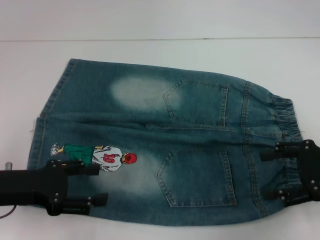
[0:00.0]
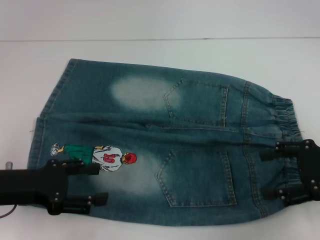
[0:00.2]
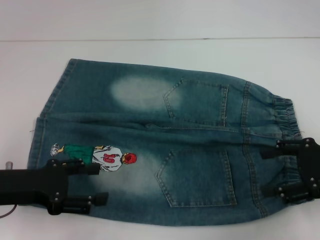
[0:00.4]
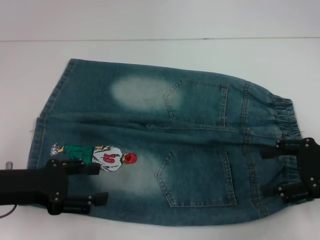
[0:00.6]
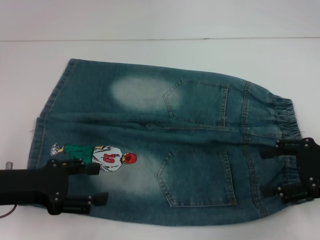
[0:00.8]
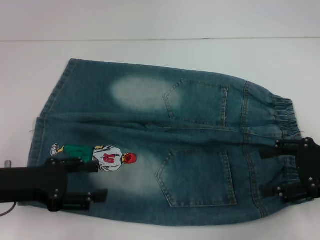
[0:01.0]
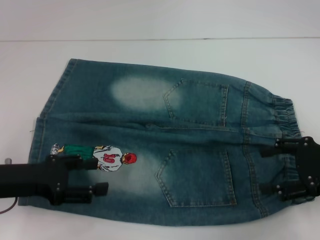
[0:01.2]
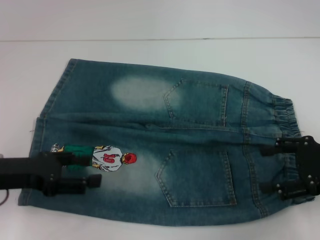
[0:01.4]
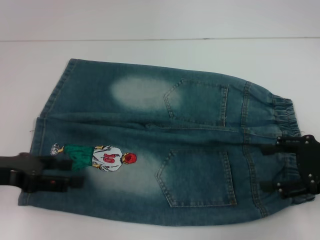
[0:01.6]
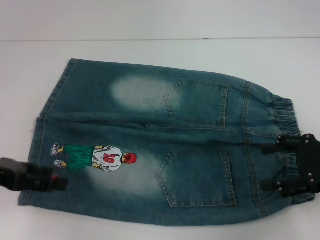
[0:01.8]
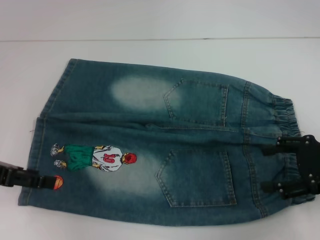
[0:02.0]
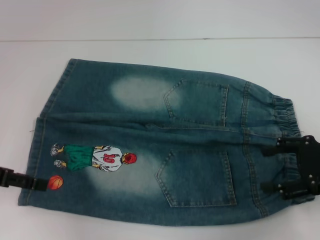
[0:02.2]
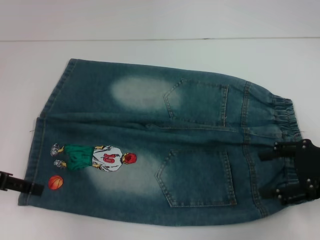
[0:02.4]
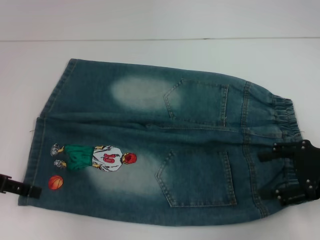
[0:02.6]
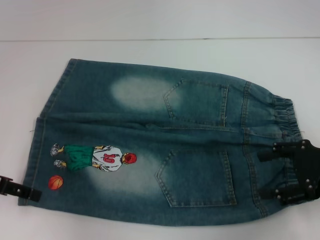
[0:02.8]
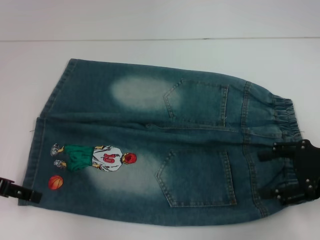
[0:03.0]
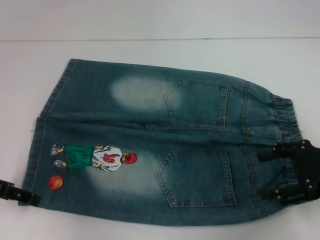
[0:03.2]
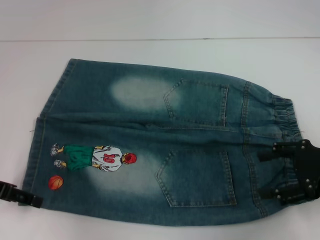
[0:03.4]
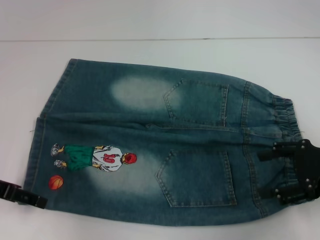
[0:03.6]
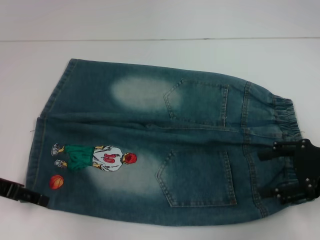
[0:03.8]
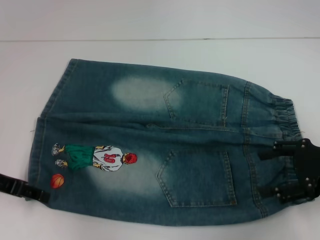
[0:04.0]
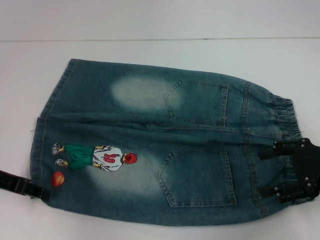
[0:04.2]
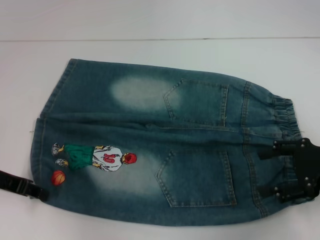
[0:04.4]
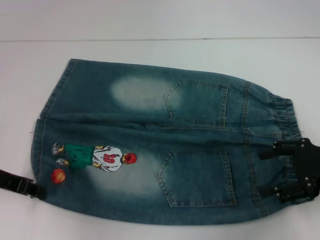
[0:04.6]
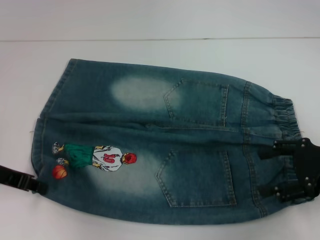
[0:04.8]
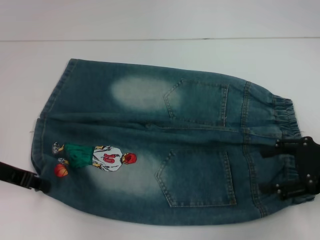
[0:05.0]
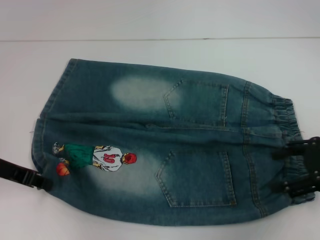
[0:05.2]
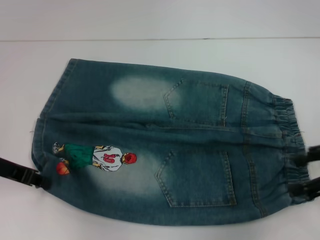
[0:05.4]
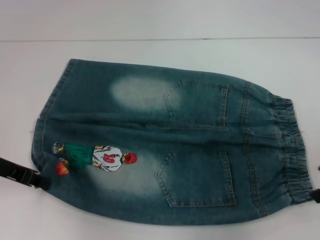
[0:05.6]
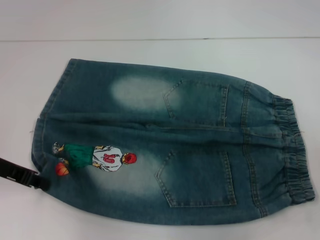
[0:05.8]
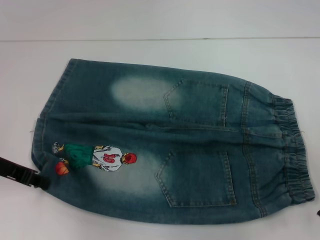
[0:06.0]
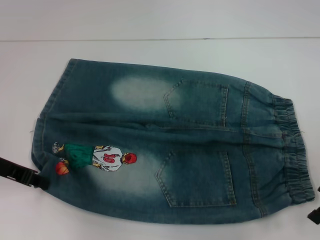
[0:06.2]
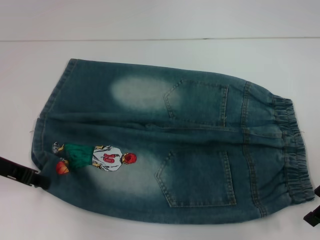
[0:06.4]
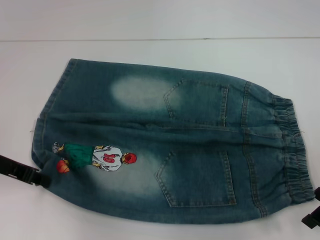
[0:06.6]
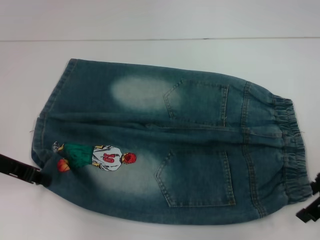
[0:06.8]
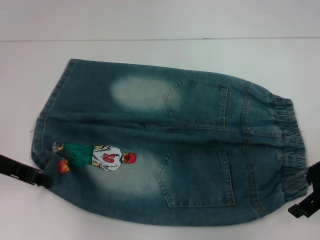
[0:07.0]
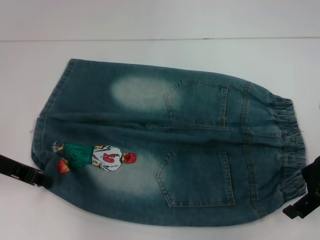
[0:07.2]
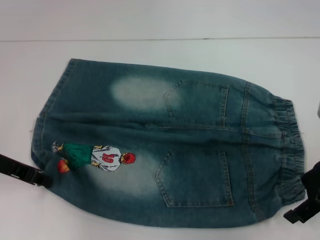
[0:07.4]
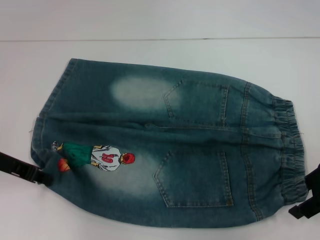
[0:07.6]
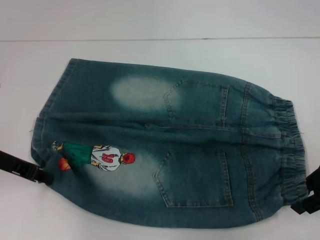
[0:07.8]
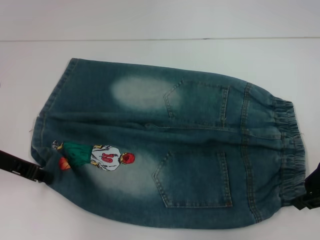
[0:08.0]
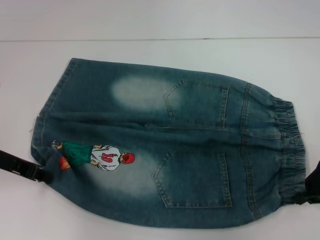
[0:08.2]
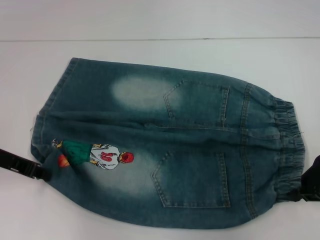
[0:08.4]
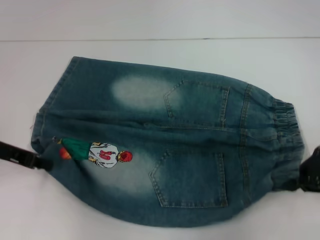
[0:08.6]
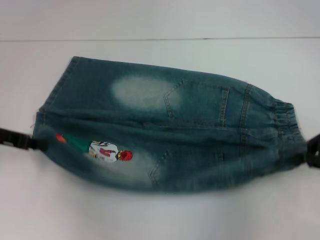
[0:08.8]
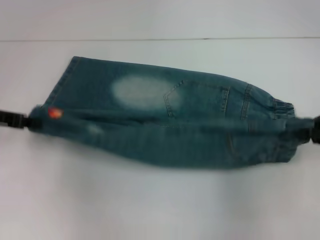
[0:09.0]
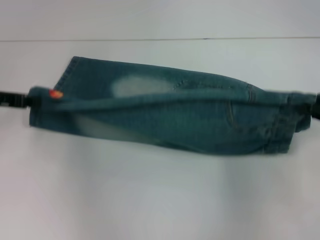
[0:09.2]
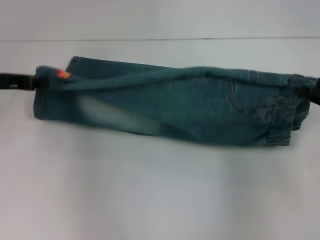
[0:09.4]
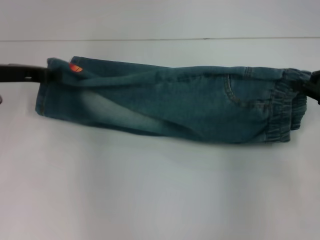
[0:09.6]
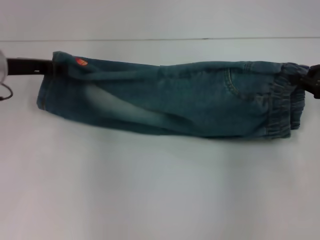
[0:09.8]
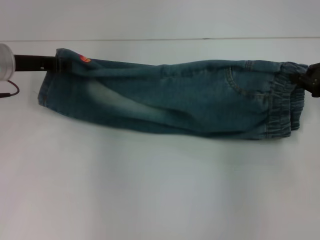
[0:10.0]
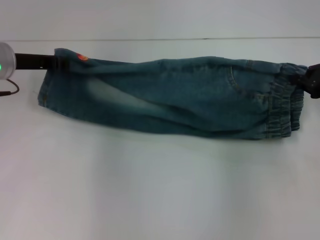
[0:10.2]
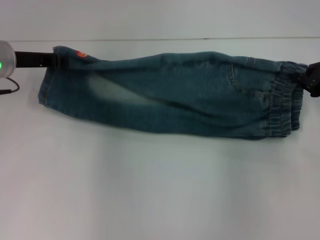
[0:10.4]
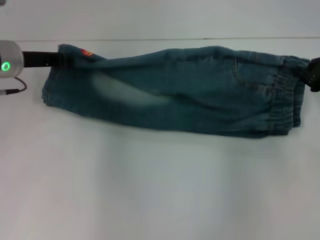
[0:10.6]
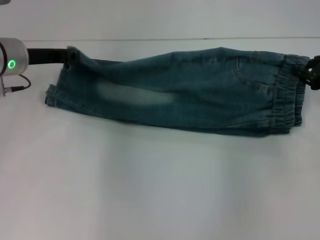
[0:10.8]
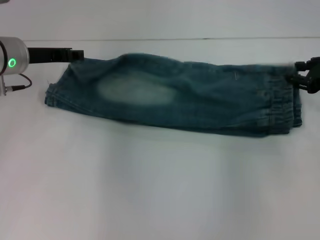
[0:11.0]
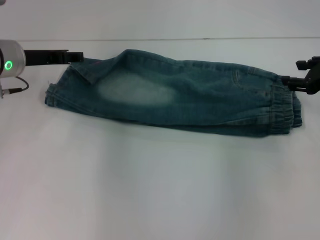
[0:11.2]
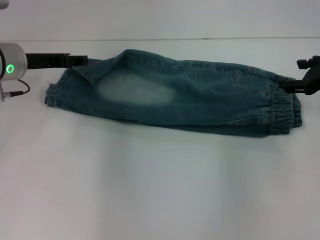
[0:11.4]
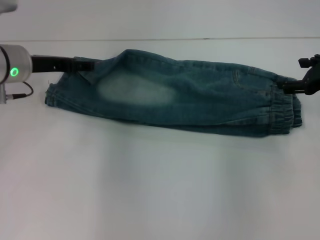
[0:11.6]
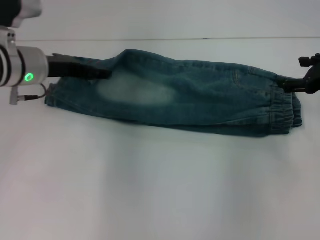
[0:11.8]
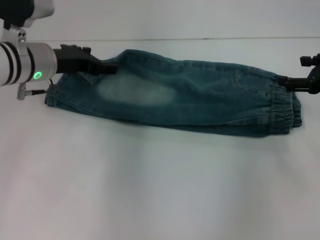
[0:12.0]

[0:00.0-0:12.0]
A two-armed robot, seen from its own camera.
Step, 0:00.0 to 0:05.0: Grab the lower left pant leg with your left hand.
Step, 0:05.2 to 0:08.2: Hold the lower right waistband with your right hand.
Step, 0:08.6 to 0:11.0: Fold upward with your right hand.
0:00.0 to 0:01.6: The grippers move only a little.
0:03.0 to 0:04.4: The left gripper closes.
0:04.4 to 0:06.0: The left gripper closes; the right gripper goes roughly 5 cm upward.
0:06.0 to 0:07.6: The grippers make only small movements.
0:07.6 to 0:09.0: The right gripper ends up about 5 cm from where it was, and closes.
0:09.0 to 0:10.4: The left gripper moves forward and to the right, roughly 10 cm, while the right gripper heads forward, covering roughly 5 cm.
0:10.4 to 0:12.0: The left gripper travels to the right by approximately 5 cm, and opens up; the right gripper opens its fingers.

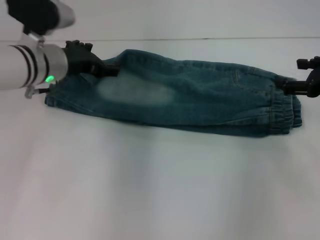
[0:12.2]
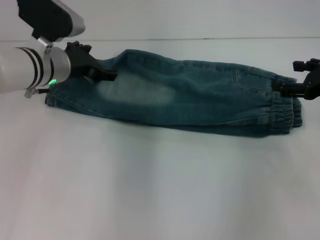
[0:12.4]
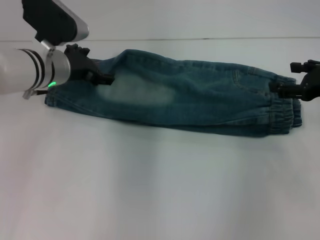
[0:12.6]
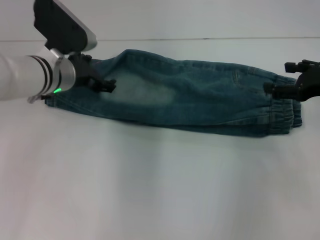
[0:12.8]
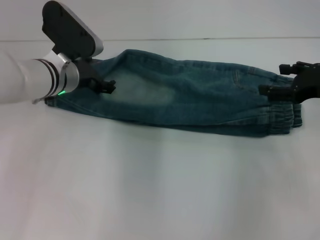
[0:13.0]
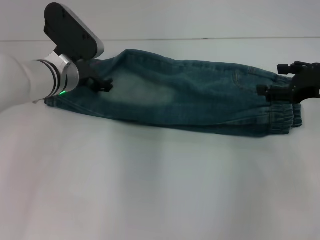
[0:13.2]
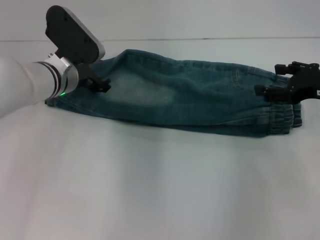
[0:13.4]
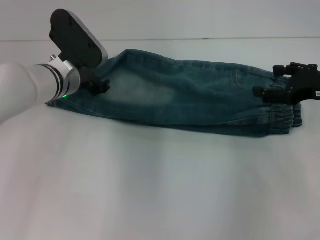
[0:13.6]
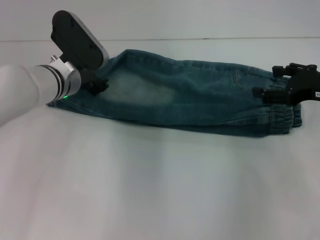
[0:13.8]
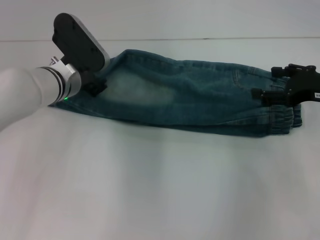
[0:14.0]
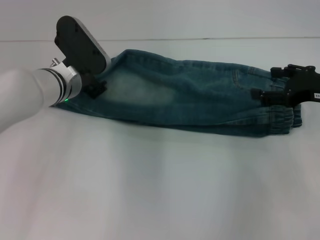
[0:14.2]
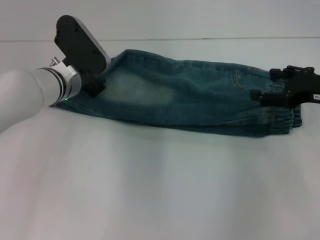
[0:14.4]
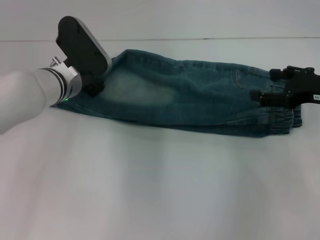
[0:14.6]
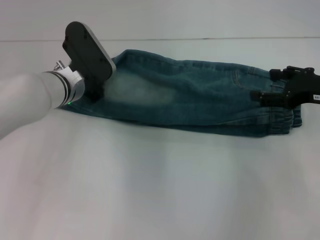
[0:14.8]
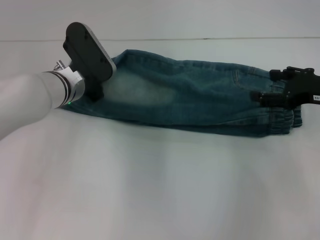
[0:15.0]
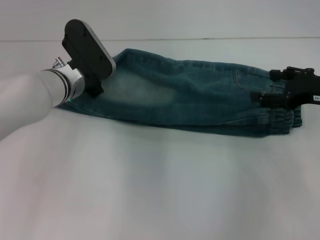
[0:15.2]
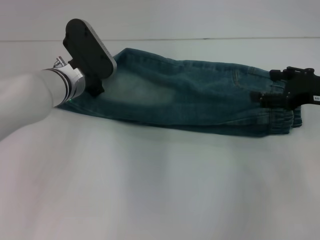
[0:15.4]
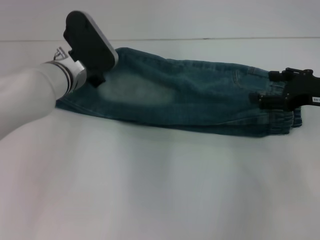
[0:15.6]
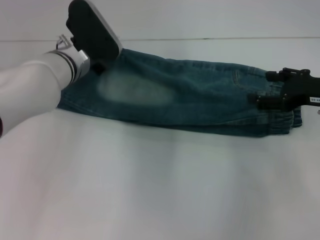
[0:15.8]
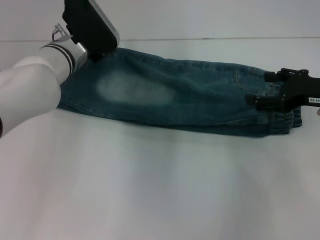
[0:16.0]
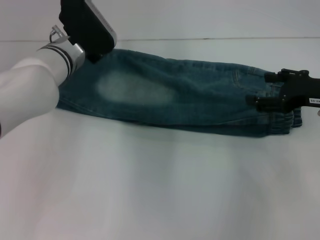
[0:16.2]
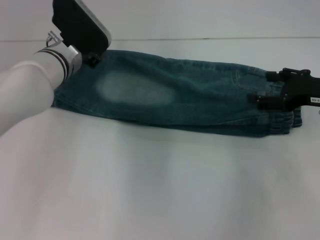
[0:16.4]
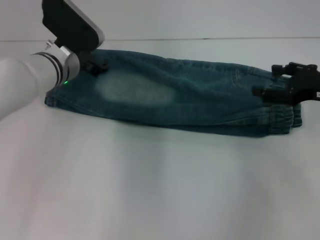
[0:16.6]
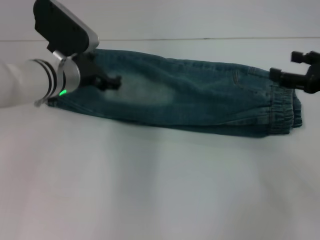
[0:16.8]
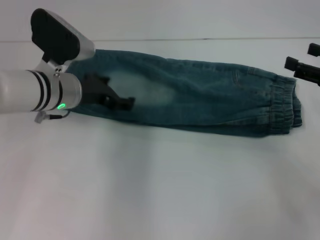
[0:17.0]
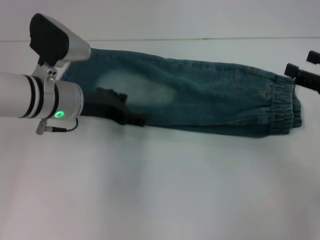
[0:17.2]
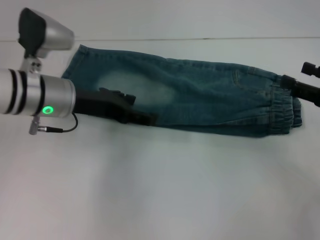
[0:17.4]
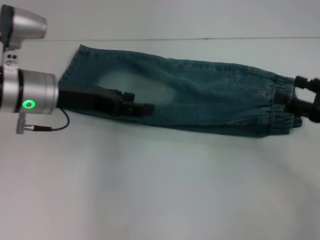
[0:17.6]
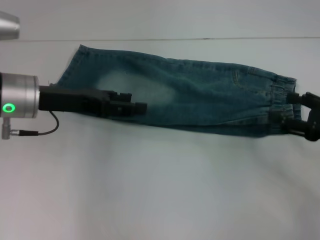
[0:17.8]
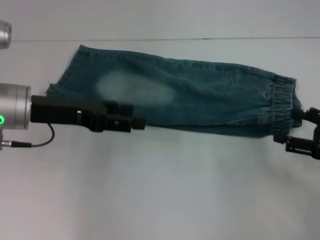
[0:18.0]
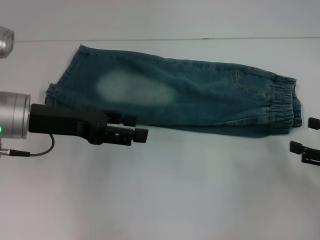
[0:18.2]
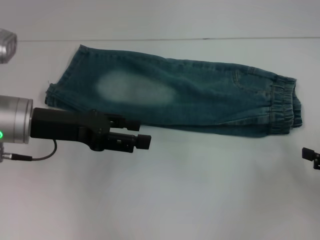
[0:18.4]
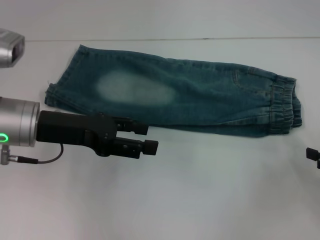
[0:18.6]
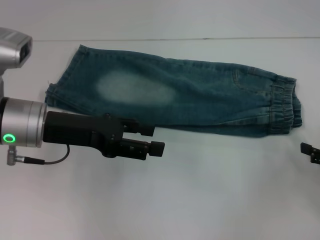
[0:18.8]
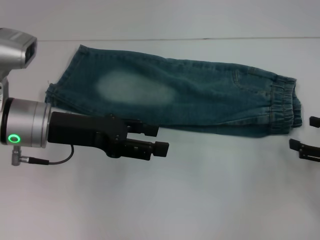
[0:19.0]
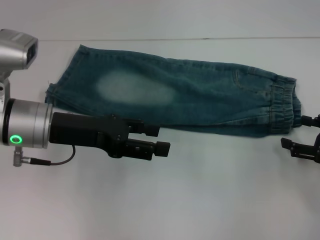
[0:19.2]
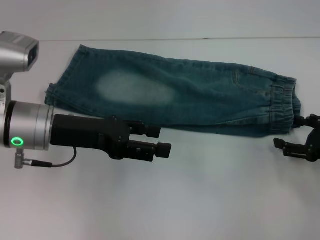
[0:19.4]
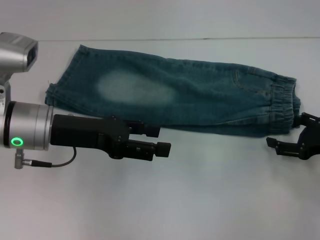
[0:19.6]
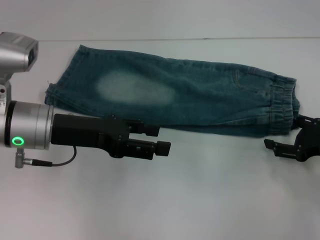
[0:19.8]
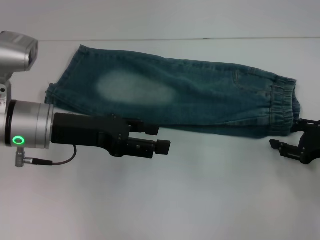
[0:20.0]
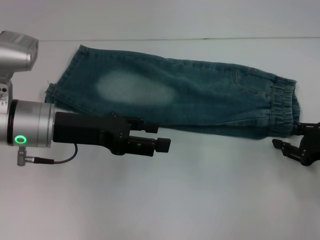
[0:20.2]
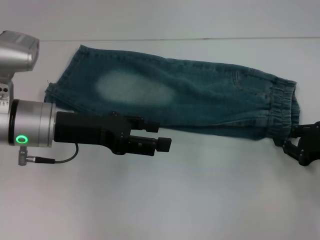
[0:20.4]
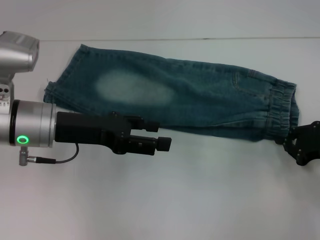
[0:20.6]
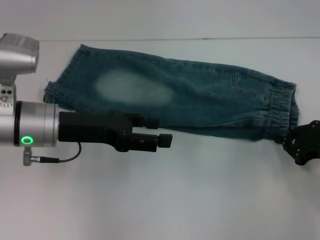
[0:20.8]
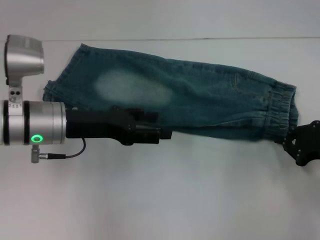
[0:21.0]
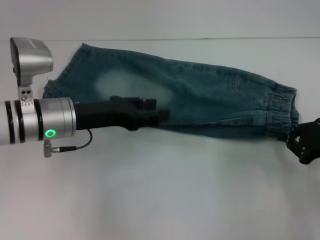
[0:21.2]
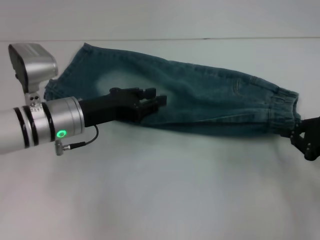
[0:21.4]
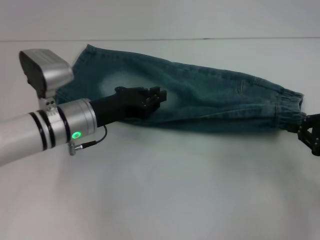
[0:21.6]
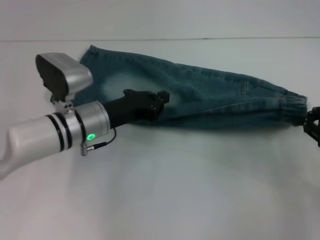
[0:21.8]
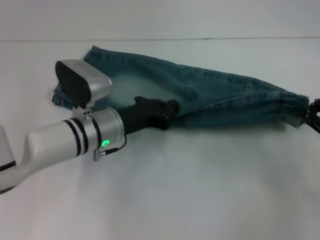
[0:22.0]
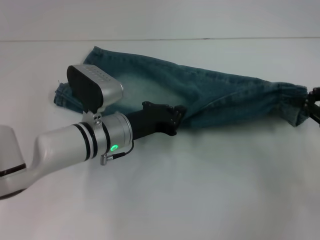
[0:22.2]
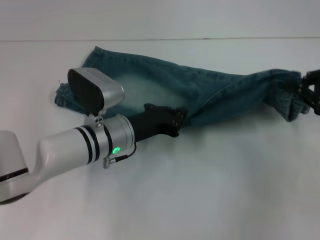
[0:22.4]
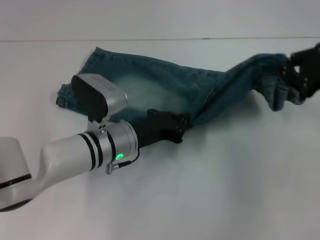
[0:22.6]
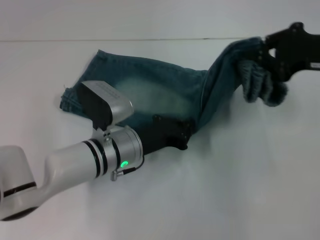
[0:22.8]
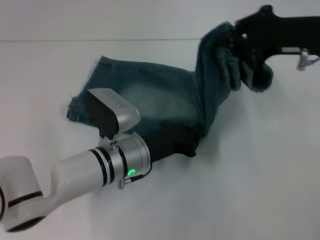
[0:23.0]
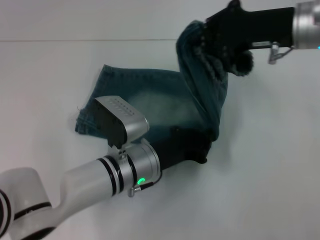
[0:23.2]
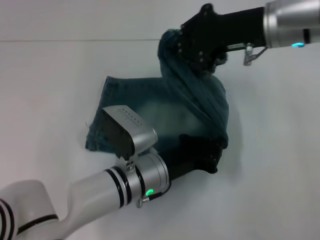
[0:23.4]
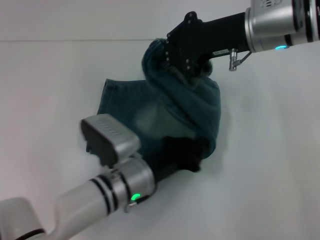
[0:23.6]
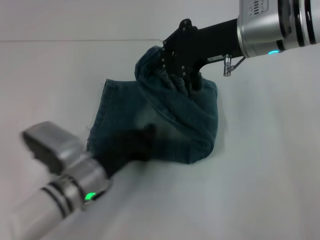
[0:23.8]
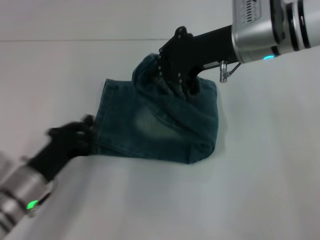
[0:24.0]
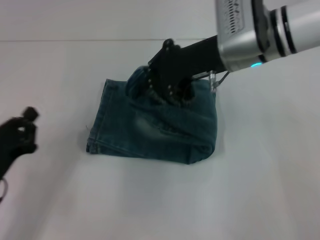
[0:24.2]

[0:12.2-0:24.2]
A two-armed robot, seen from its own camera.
Step, 0:12.2 to 0:20.4: Grab the waistband with your right hand.
Step, 0:20.6 to 0:23.6: Press the middle of the pants with your left hand.
0:12.2 to 0:13.8: The left gripper ends up approximately 5 cm from where it was.
0:13.8 to 0:15.2: The left gripper closes up.
0:15.2 to 0:16.6: The left gripper opens up.
0:16.6 to 0:18.2: The left gripper moves backward and to the left, roughly 10 cm; the right gripper travels backward, to the right and downward by about 15 cm.
0:18.2 to 0:19.8: The right gripper travels forward by approximately 5 cm.
0:19.8 to 0:21.2: The right gripper closes up.
0:21.2 to 0:22.6: The left gripper is displaced to the right and downward by approximately 10 cm, and closes. Meanwhile the right gripper goes about 10 cm upward and forward.
0:22.6 to 0:24.2: The right gripper is displaced to the left by about 20 cm; the left gripper travels to the left and backward by approximately 20 cm.
